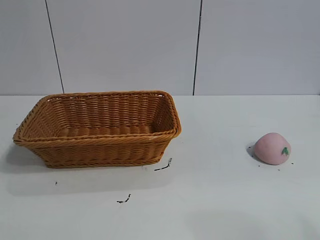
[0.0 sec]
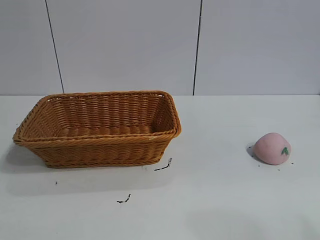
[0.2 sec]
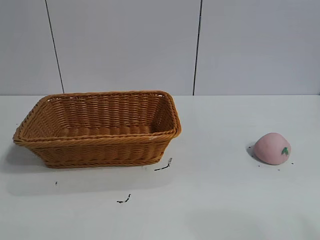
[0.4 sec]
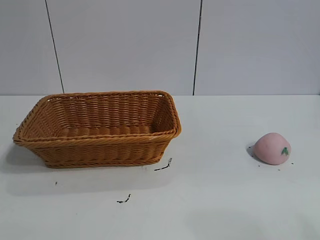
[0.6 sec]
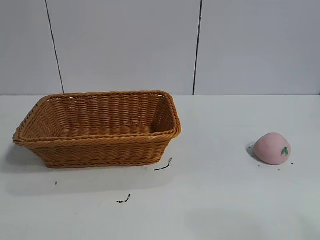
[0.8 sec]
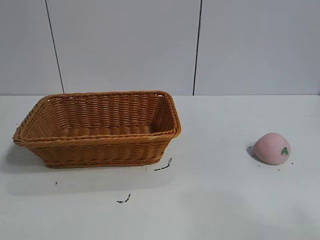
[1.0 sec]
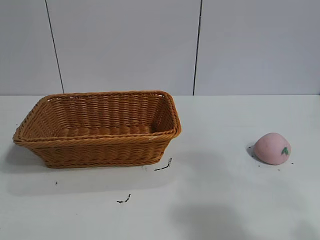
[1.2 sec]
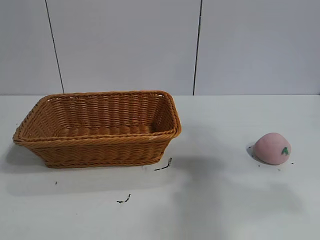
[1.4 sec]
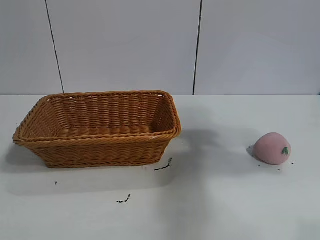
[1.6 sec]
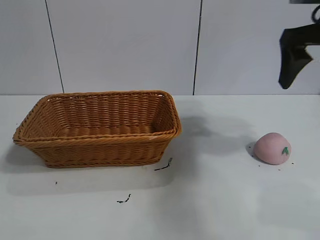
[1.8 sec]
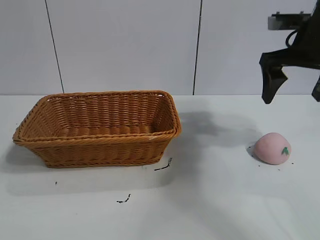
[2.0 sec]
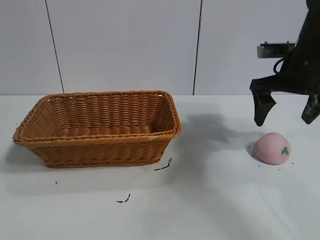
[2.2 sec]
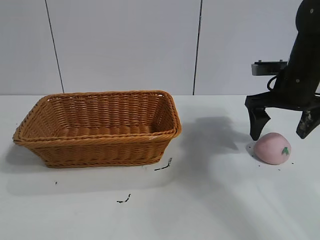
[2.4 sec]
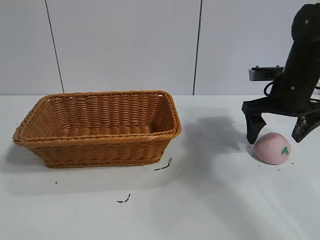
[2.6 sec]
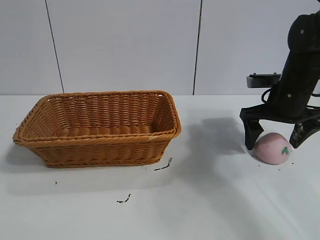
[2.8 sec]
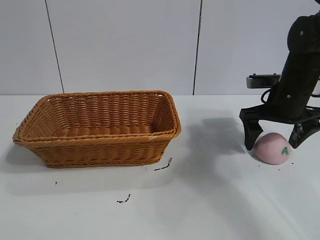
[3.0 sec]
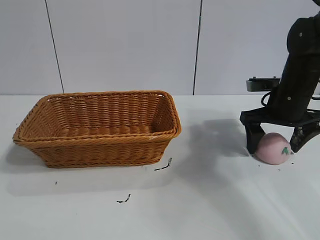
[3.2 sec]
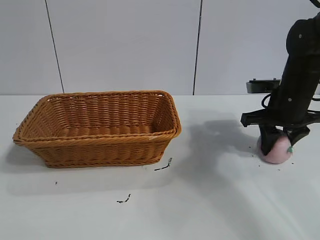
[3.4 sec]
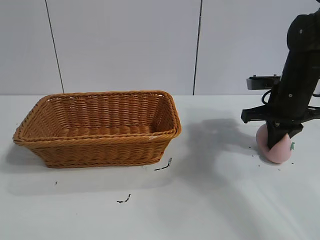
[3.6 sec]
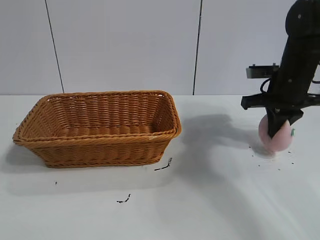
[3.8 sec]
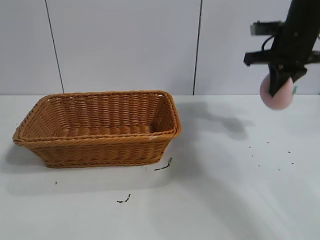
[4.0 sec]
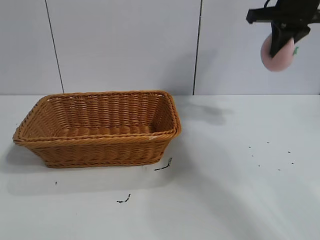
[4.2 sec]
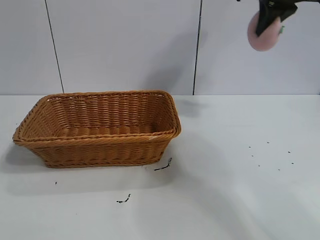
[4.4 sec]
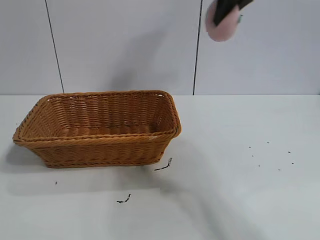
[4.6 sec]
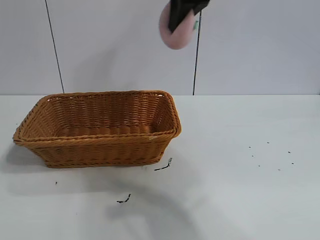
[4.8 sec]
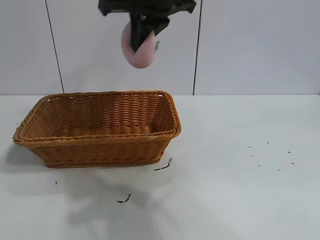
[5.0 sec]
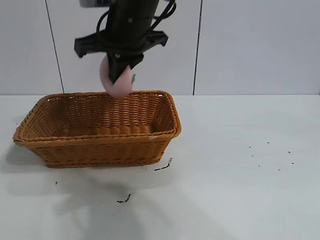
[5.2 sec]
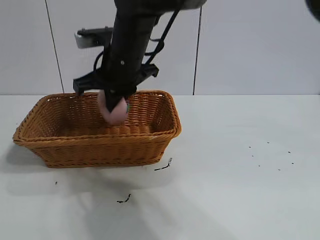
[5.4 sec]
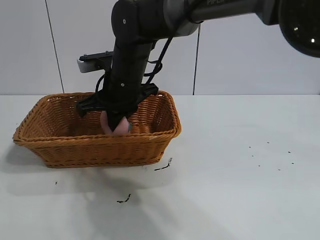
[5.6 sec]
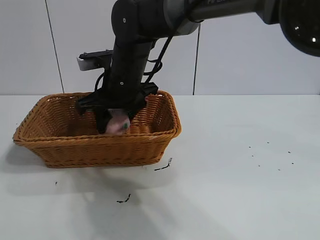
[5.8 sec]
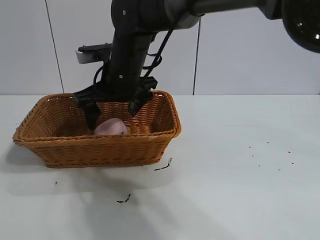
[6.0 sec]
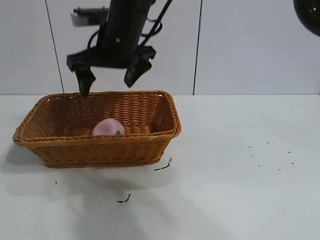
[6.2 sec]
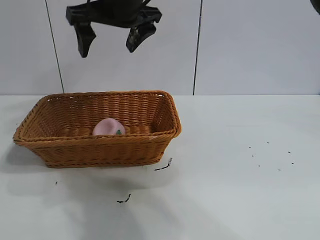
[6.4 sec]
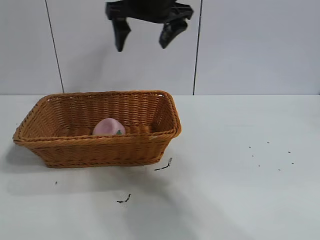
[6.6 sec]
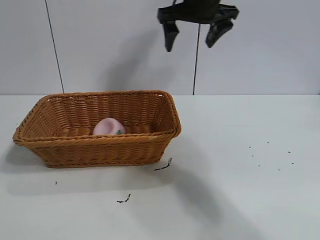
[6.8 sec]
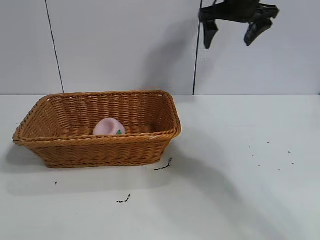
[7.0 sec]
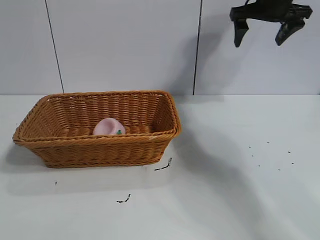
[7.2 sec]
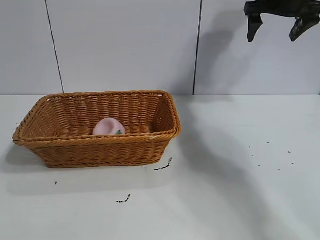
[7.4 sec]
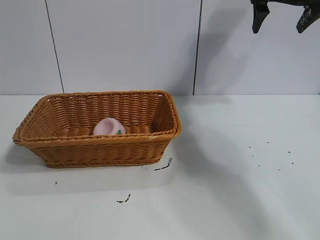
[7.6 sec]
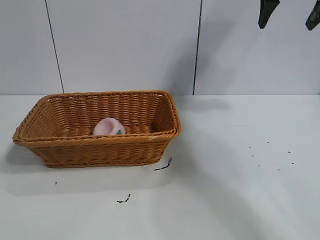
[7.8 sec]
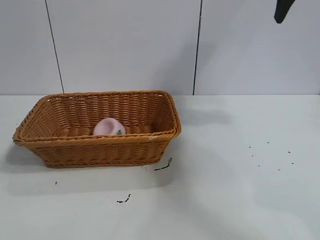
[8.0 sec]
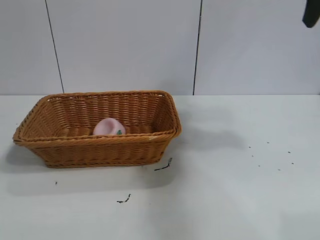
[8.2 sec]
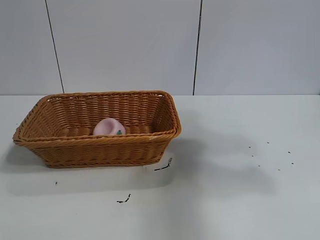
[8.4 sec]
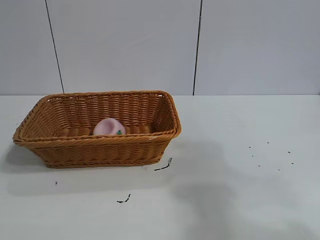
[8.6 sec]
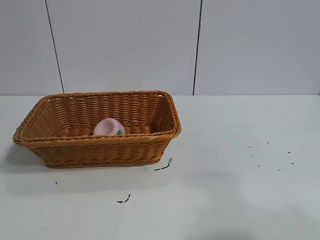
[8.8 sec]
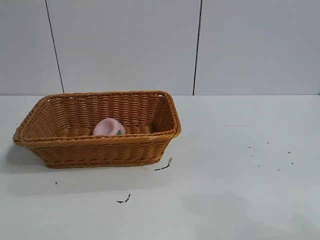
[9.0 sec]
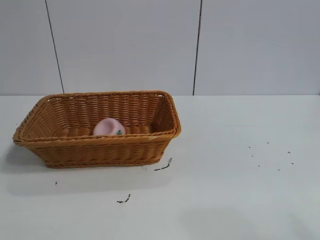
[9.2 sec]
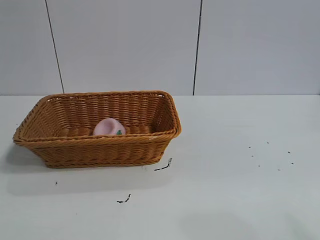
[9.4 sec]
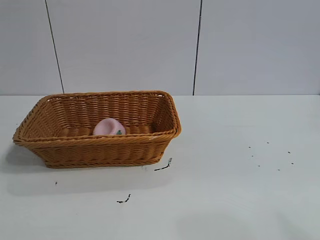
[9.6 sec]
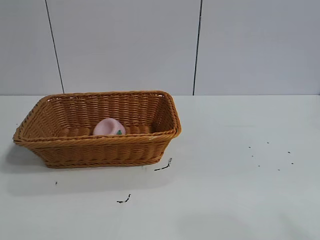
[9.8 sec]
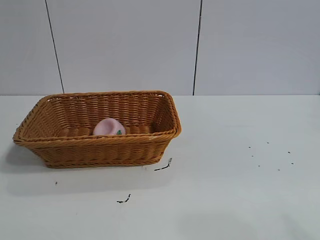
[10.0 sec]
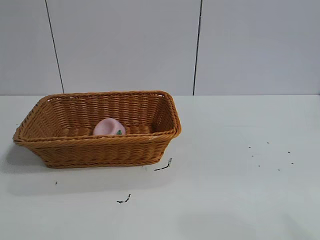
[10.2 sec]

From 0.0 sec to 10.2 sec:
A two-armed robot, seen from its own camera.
Task of the whole recording: pick up the peach and put it into the basket.
Step, from 1.0 sec to 3.6 sec: Grasp the peach with right gripper.
Step, from 3.8 sec to 6.2 sec: Place the peach in the basket with right gripper.
